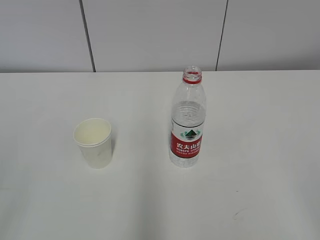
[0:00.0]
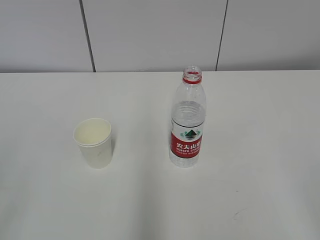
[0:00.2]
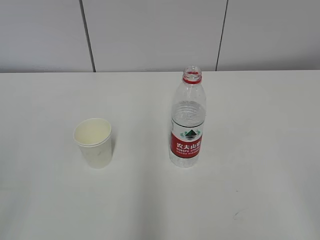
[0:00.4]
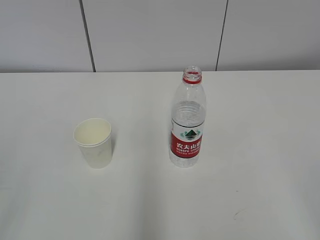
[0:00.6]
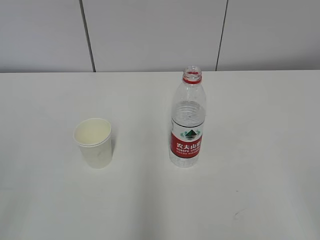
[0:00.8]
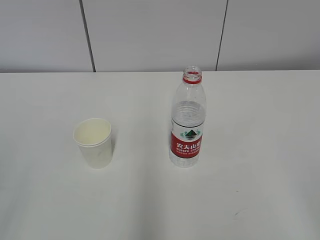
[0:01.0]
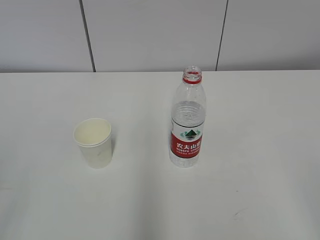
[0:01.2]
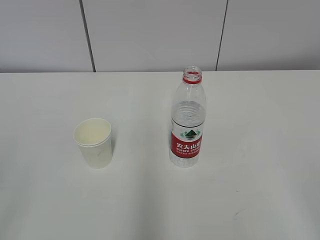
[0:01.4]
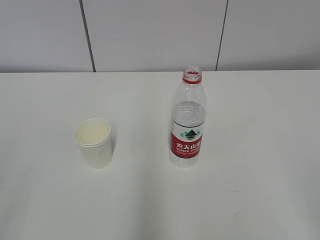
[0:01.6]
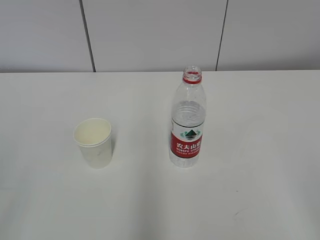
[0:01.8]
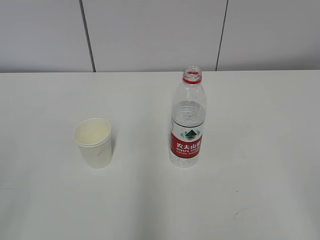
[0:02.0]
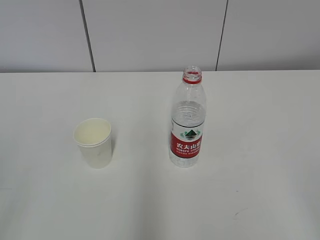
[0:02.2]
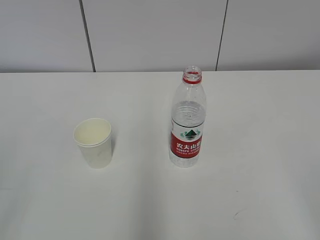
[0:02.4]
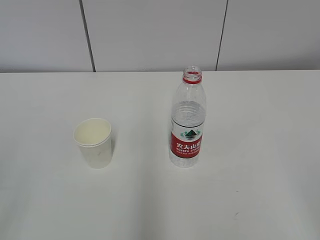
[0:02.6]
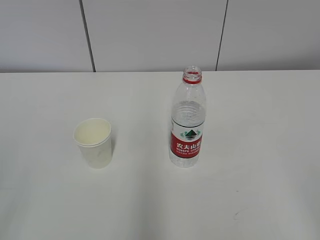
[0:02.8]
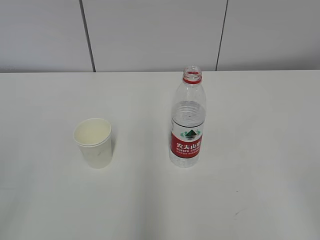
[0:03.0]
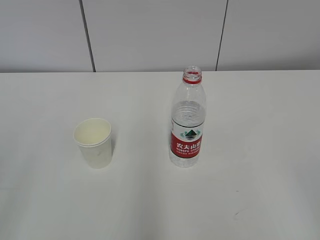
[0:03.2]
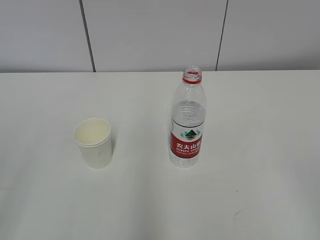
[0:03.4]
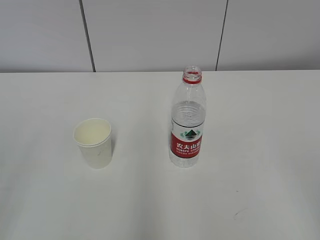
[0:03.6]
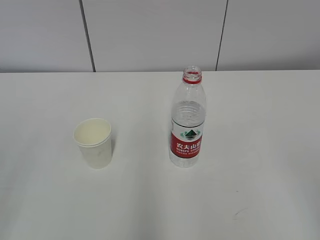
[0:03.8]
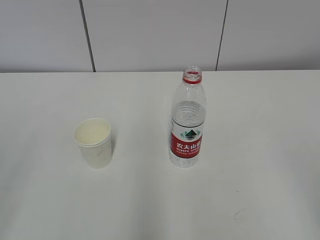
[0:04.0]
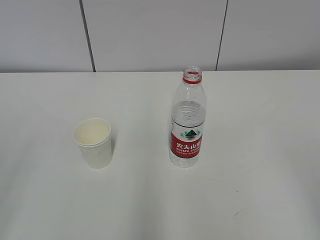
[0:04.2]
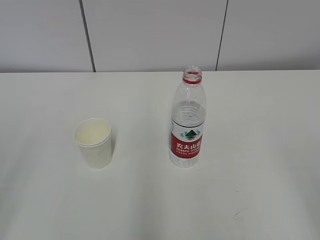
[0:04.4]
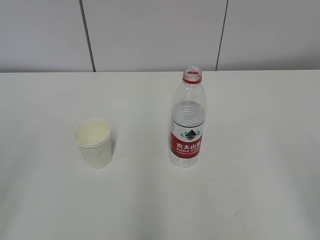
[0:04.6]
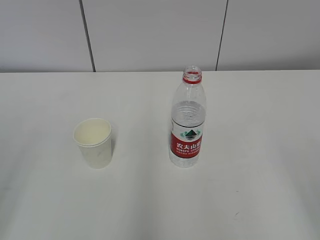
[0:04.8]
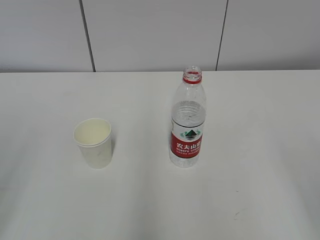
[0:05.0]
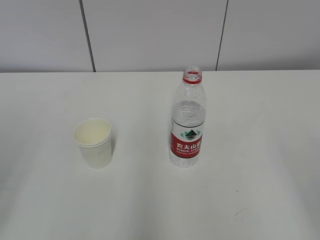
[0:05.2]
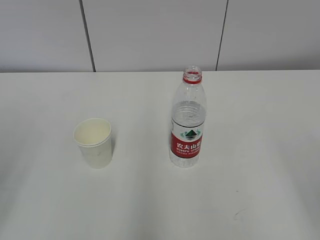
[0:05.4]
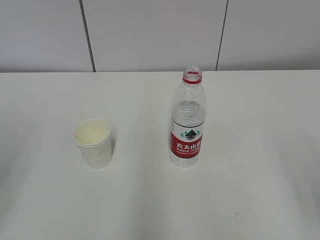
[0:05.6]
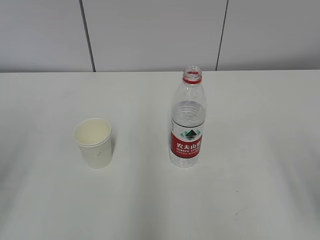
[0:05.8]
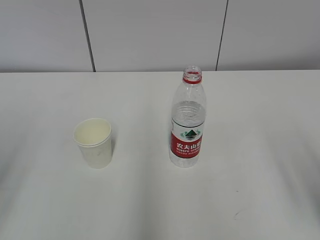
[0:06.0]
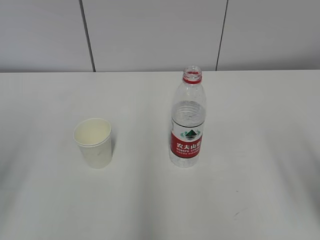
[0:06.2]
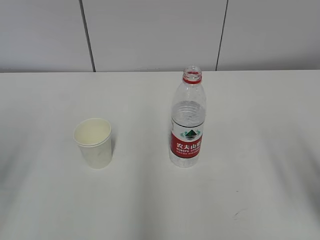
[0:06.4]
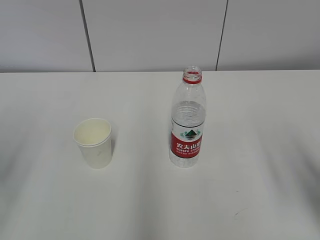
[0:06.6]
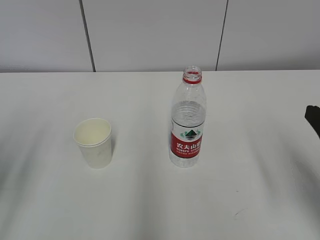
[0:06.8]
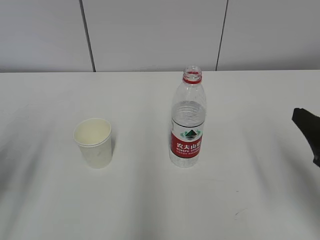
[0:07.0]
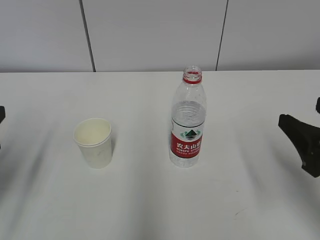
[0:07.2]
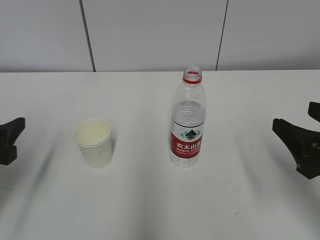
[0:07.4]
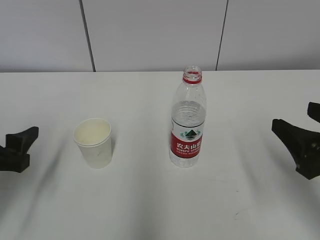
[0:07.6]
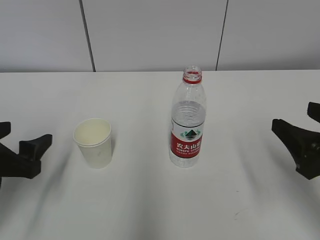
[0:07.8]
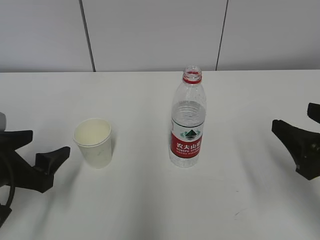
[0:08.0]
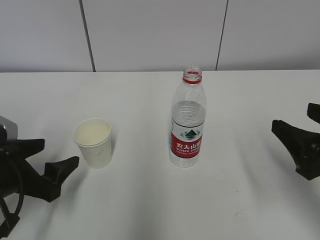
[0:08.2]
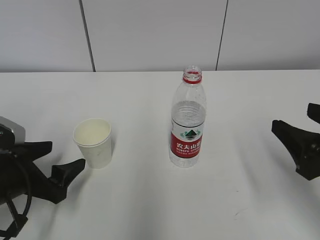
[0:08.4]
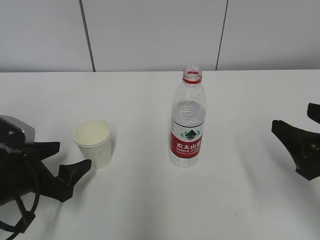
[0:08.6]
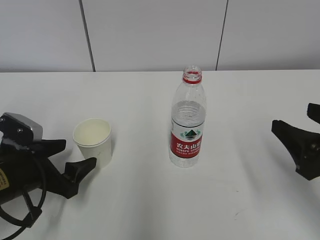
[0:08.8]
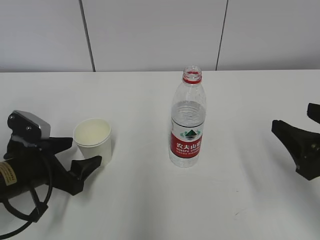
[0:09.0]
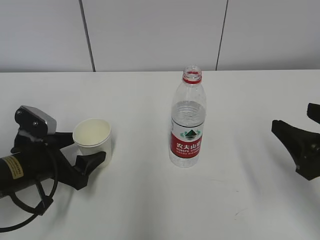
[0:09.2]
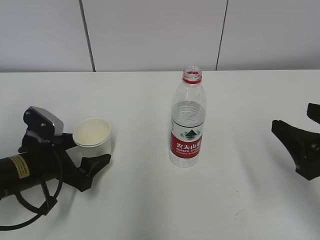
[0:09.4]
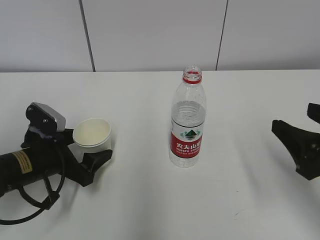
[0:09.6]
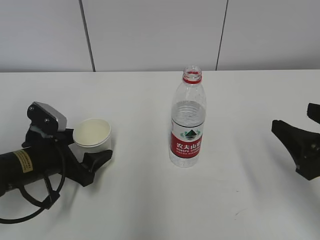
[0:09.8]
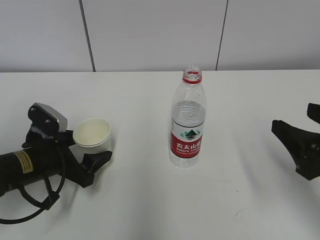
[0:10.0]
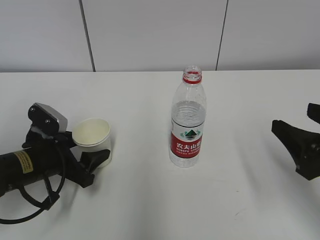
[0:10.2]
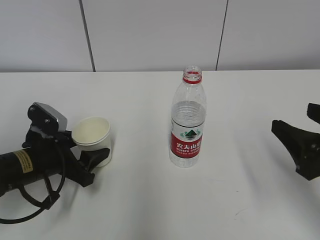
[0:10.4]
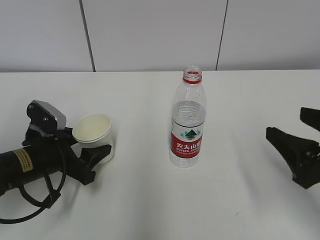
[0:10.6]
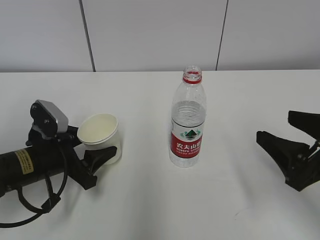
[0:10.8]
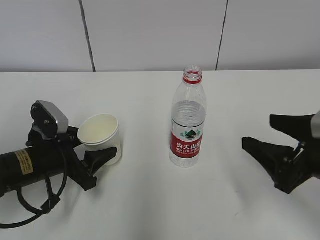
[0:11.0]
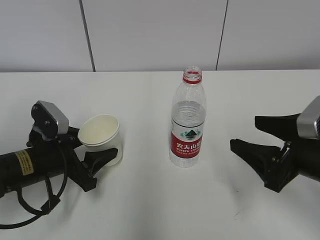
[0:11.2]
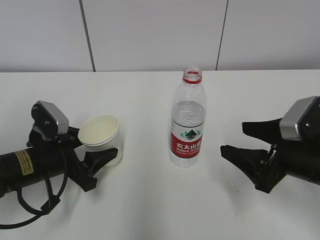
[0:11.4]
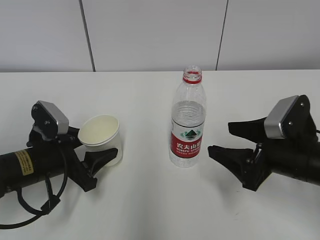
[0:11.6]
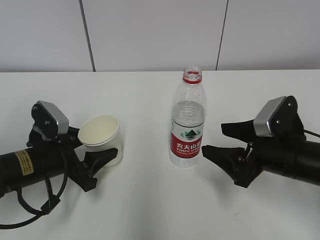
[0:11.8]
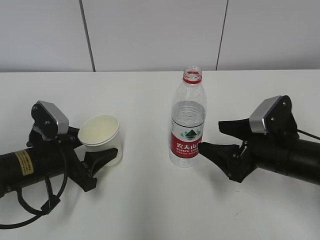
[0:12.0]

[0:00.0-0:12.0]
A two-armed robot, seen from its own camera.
Step, 0:00.0 to 0:08.4: Grab the paper cup with the left hand.
Step, 0:08.6 to 0:11.6: Grab the water bottle with the right hand.
0:01.6 to 0:03.0: Neither gripper changes place.
0:06.0 to 0:07.6: The left gripper moves downward and forward, roughly 10 cm, and opens its fingers. The right gripper travels forward and downward by roughly 10 cm.
0:07.6 to 0:09.0: The left gripper moves downward, approximately 10 cm.
0:09.0 to 0:10.4: The left gripper closes up.
0:10.4 to 0:12.0: The right gripper heads forward, downward and to the left, covering roughly 10 cm.

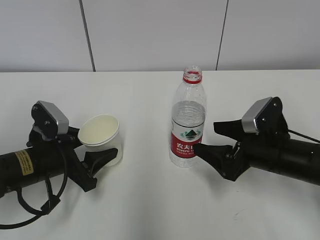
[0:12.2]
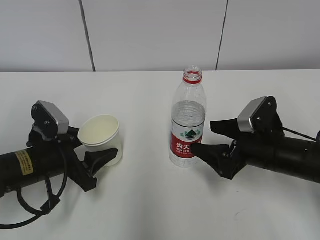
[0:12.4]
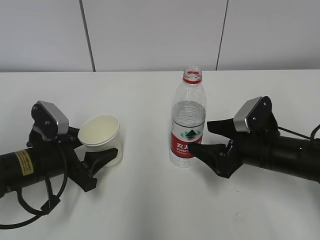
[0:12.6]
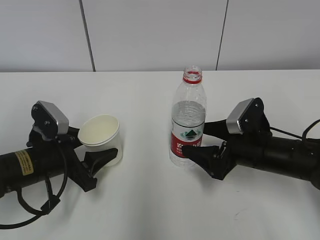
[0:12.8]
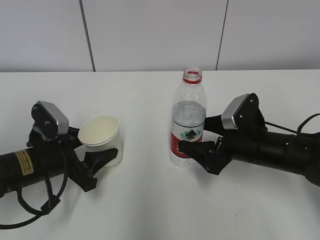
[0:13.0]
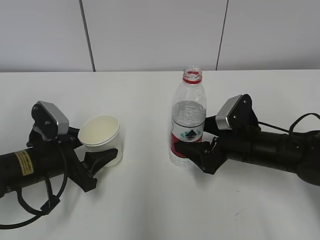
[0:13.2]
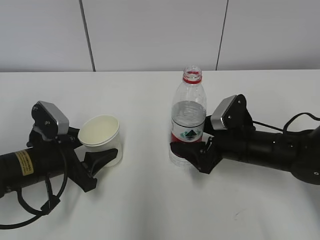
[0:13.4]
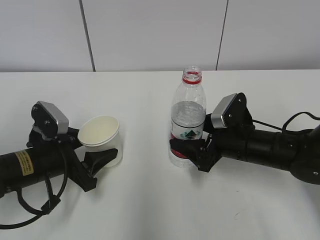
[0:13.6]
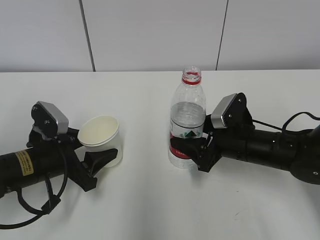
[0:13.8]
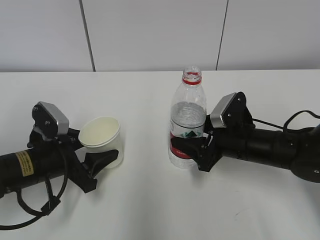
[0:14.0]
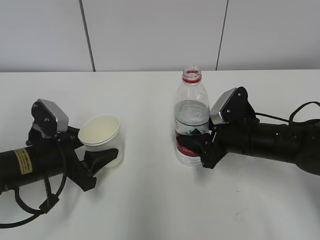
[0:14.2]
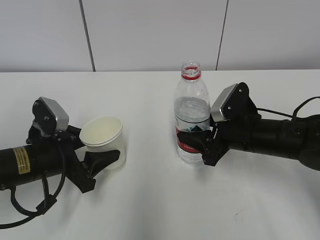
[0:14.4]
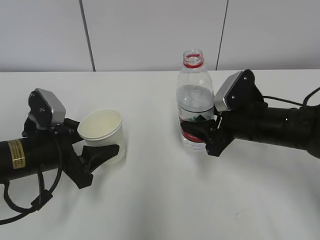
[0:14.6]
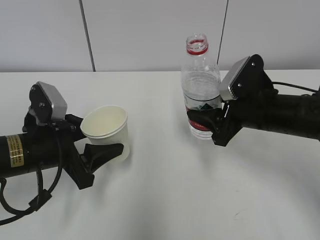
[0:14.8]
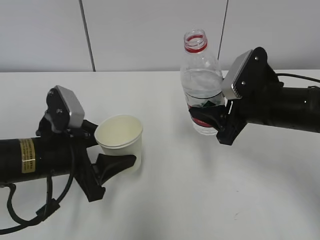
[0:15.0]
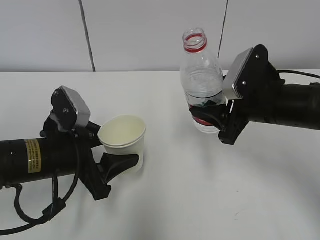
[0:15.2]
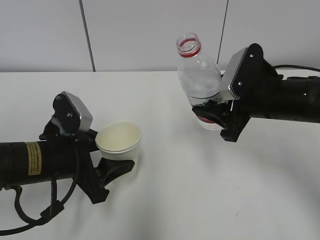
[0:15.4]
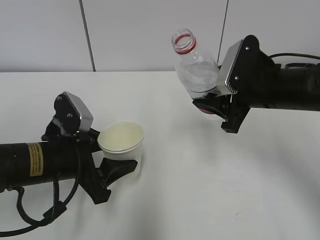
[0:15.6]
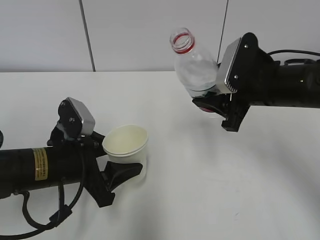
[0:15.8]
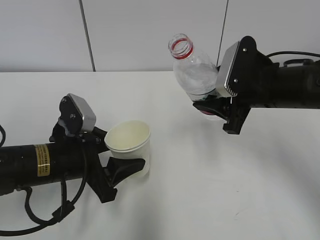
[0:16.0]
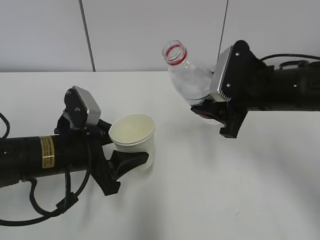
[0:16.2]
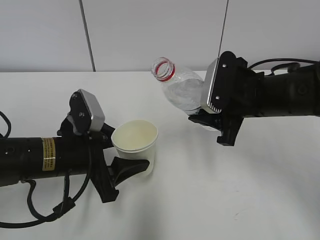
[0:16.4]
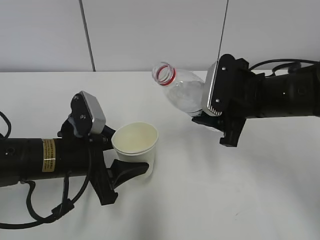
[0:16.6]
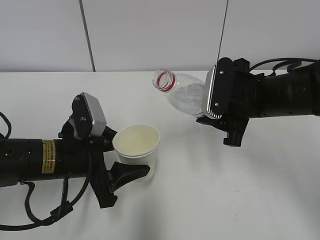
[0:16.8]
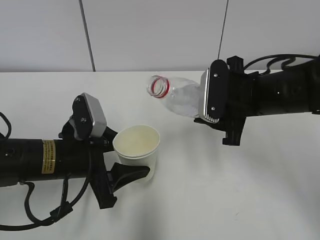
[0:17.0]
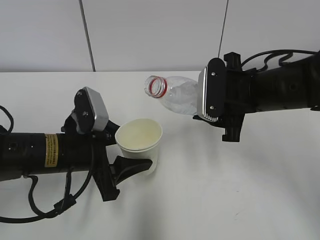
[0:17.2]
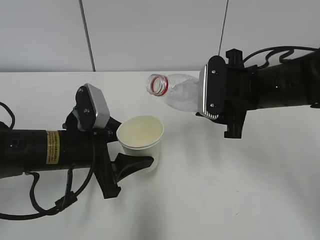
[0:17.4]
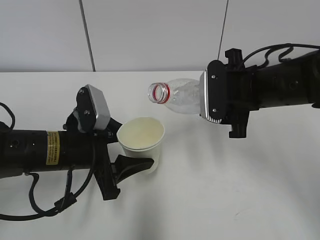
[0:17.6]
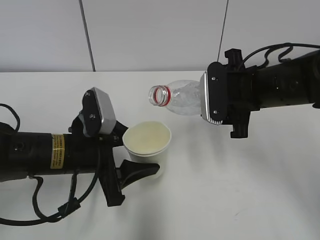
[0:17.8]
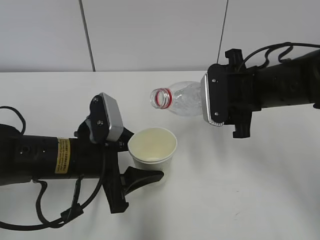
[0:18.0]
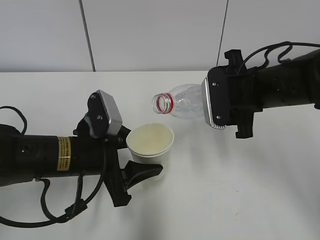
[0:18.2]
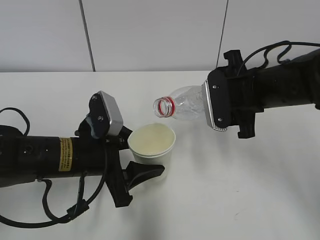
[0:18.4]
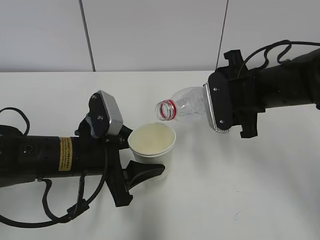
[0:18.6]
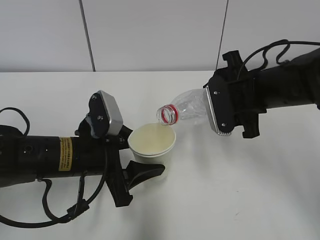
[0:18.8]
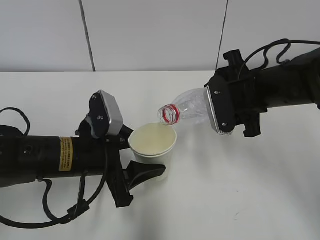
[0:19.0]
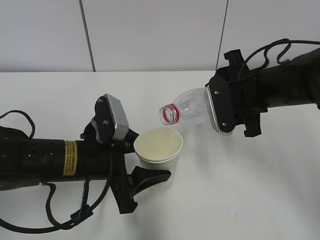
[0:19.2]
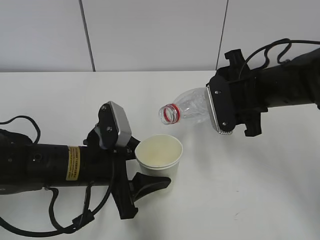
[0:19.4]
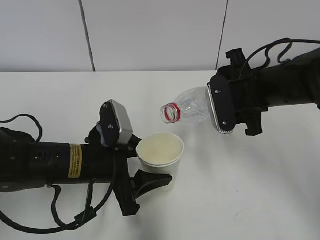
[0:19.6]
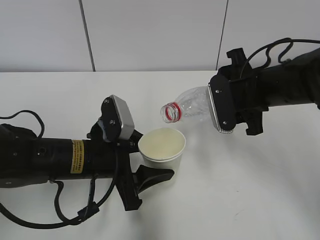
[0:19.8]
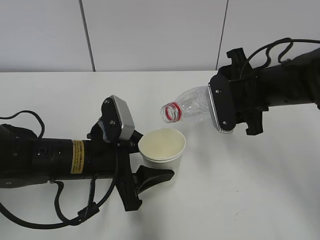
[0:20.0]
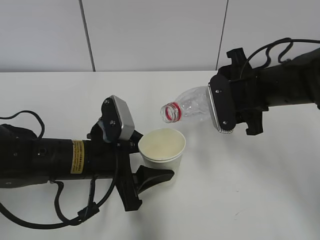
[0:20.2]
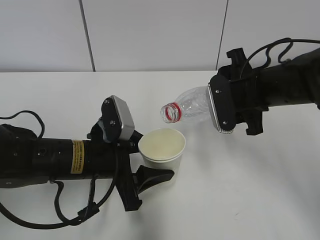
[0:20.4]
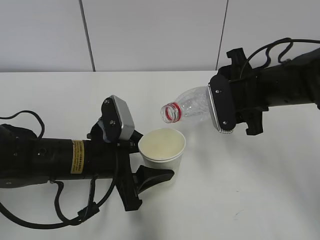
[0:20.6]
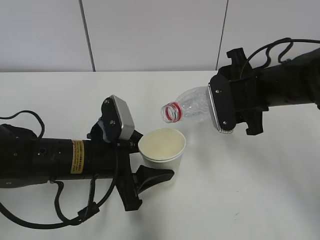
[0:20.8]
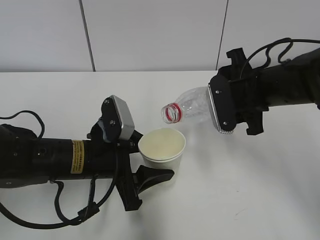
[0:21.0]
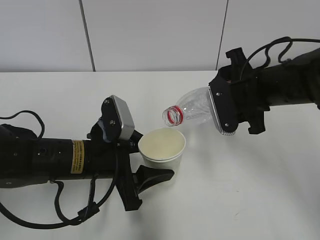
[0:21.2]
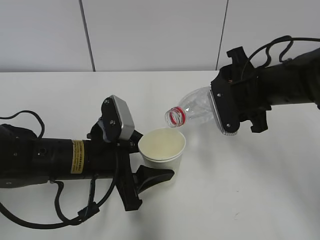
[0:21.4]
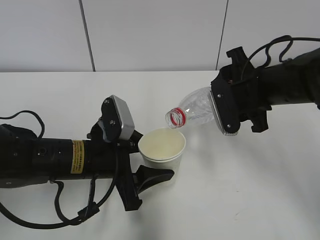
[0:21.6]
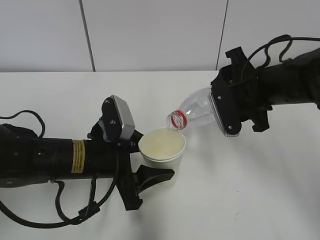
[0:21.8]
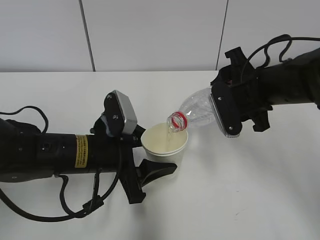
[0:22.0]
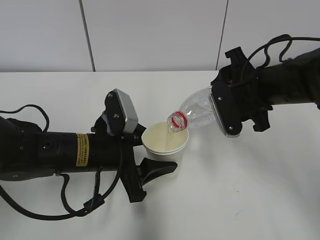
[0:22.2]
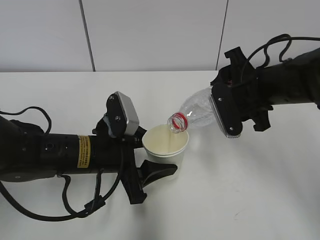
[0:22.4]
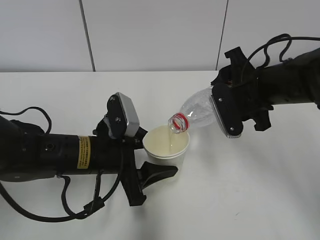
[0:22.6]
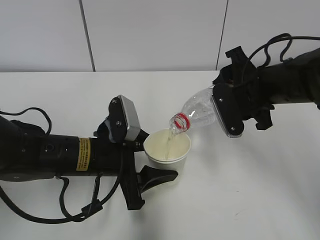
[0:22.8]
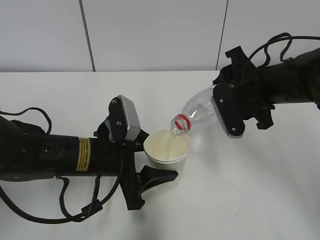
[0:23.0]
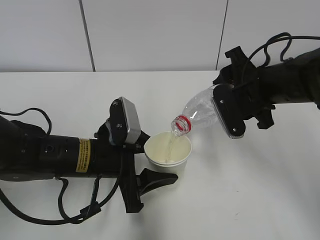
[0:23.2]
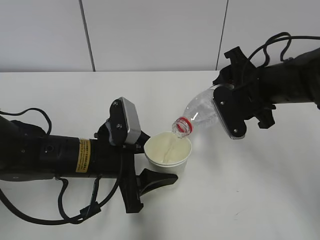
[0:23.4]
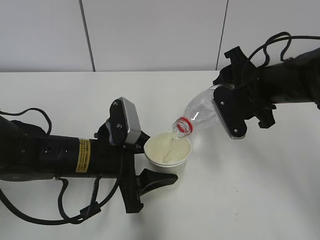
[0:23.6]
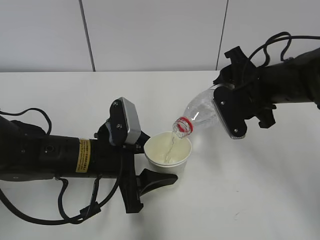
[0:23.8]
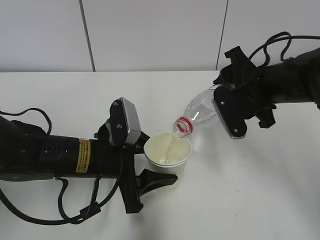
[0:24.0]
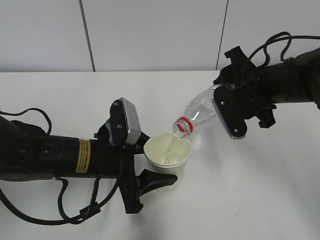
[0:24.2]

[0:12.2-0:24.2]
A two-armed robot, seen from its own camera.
Step, 0:12.2 to 0:18.2: Lift the paper cup with the left hand.
Step, 0:18.4 to 0:22.0: Fill water with the left hand.
Step, 0:18.4 to 0:22.0: Pour water with the right hand.
Step, 0:22.2 to 0:23.0: Collect water with the right hand.
0:12.2 to 0:13.8: The right gripper ends up about 5 cm from where it was, and closes its fingers.
0:13.8 to 0:15.2: The left gripper is displaced upward by some 5 cm; the right gripper goes approximately 10 cm upward.
0:18.2 to 0:19.8: There are only small adjustments of the grippers.
0:19.8 to 0:21.2: The two grippers keep their place.
0:21.2 to 0:24.2: The grippers make only small movements.
